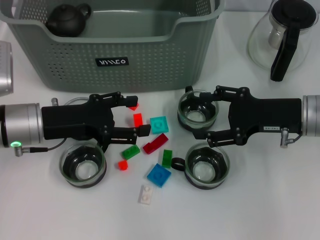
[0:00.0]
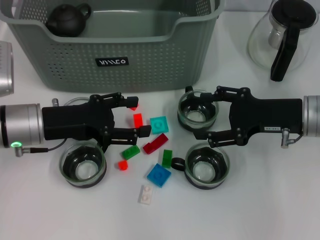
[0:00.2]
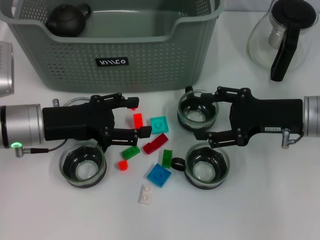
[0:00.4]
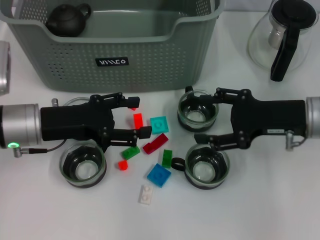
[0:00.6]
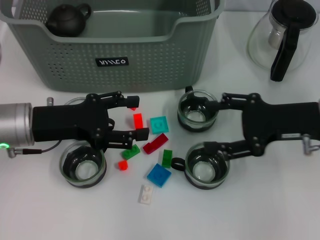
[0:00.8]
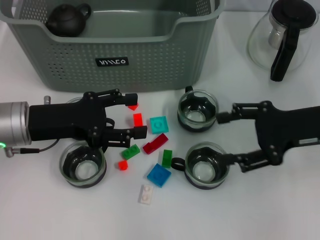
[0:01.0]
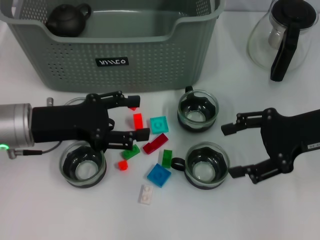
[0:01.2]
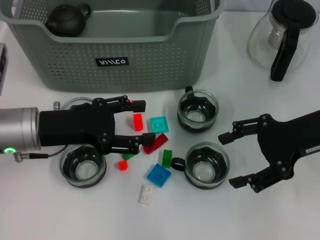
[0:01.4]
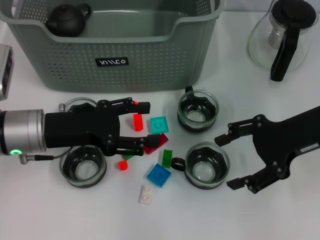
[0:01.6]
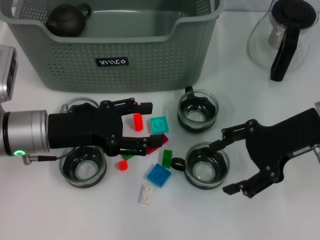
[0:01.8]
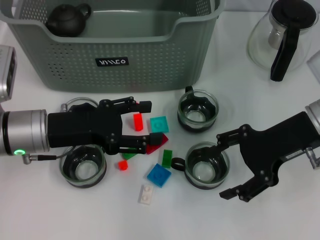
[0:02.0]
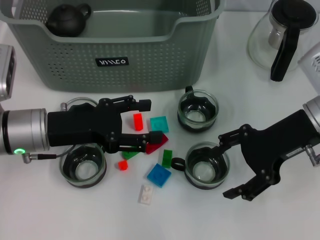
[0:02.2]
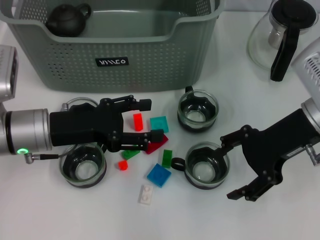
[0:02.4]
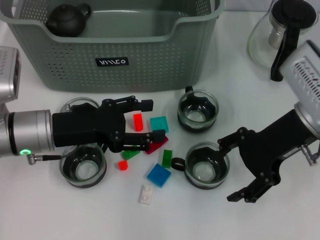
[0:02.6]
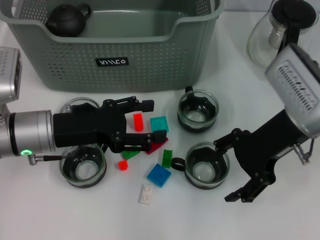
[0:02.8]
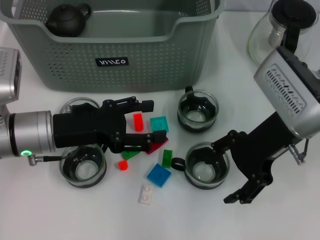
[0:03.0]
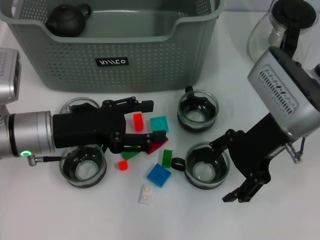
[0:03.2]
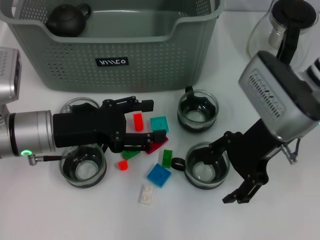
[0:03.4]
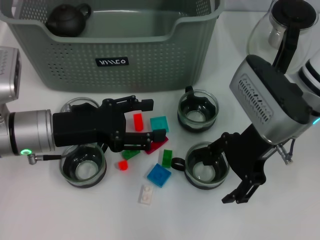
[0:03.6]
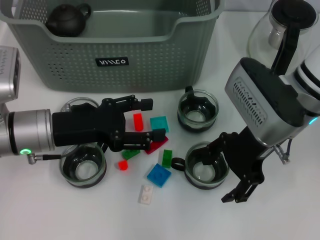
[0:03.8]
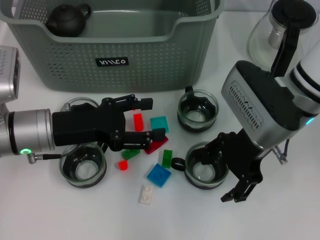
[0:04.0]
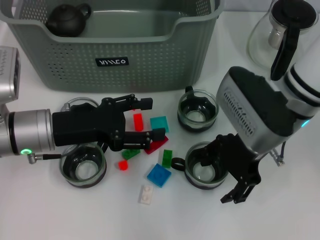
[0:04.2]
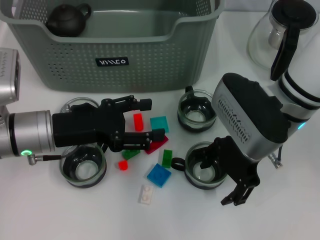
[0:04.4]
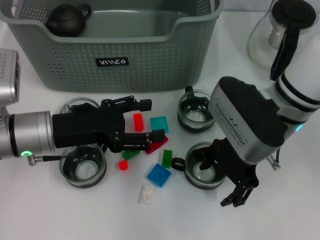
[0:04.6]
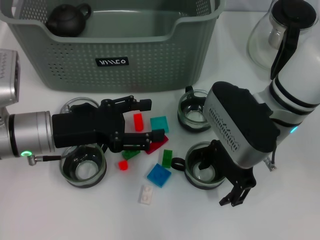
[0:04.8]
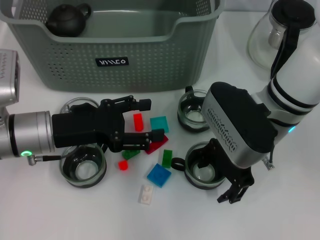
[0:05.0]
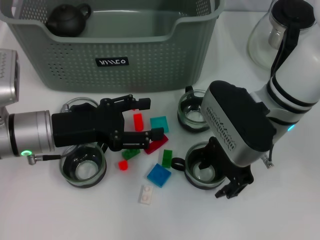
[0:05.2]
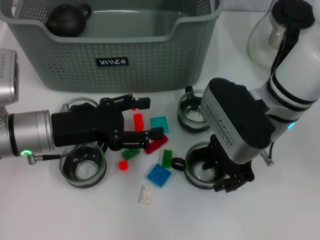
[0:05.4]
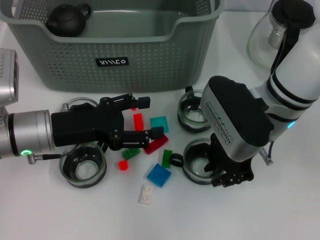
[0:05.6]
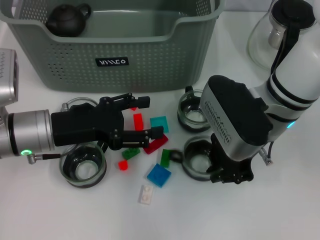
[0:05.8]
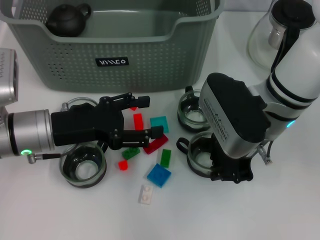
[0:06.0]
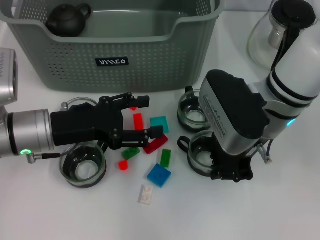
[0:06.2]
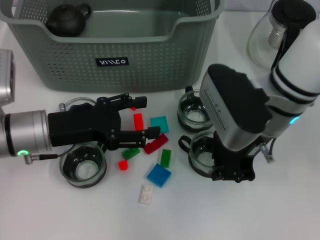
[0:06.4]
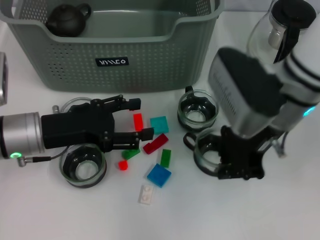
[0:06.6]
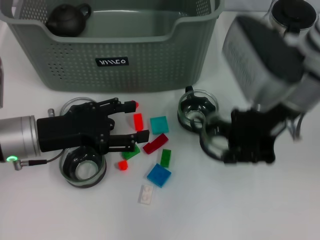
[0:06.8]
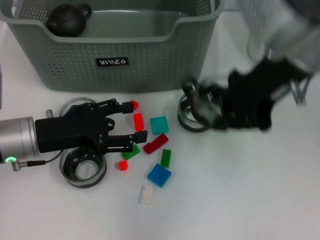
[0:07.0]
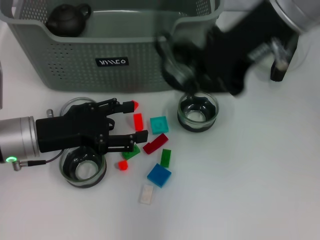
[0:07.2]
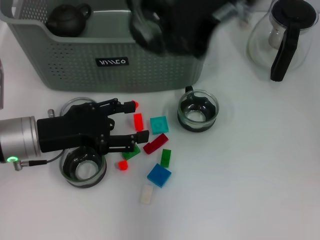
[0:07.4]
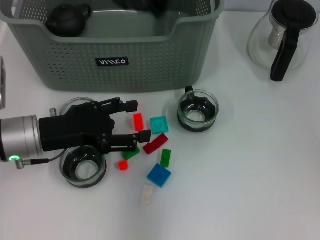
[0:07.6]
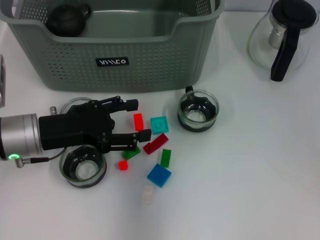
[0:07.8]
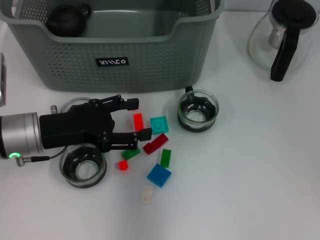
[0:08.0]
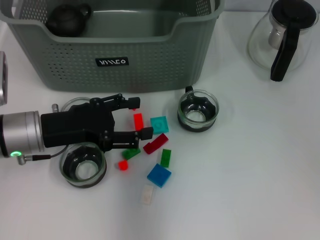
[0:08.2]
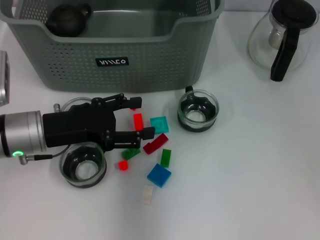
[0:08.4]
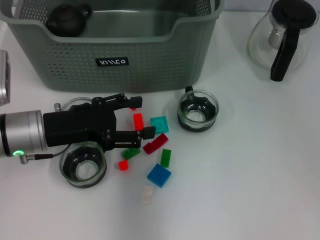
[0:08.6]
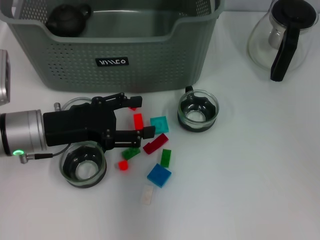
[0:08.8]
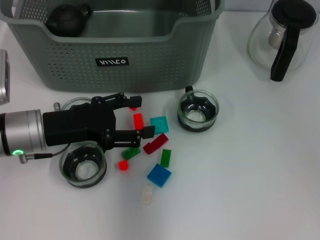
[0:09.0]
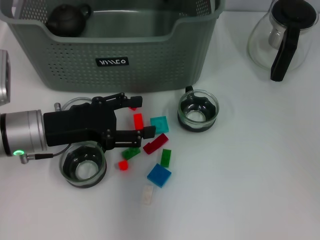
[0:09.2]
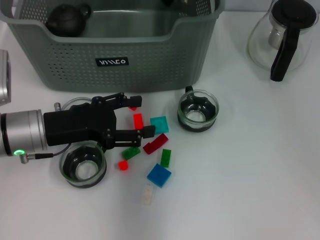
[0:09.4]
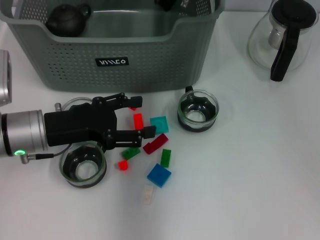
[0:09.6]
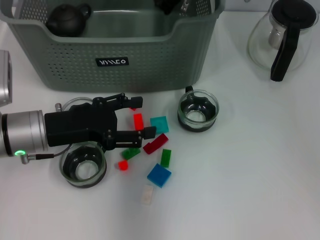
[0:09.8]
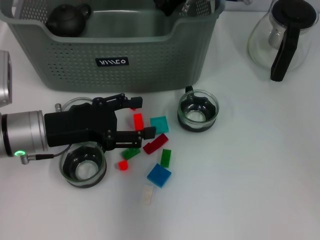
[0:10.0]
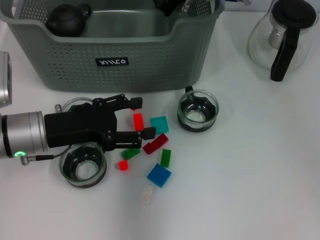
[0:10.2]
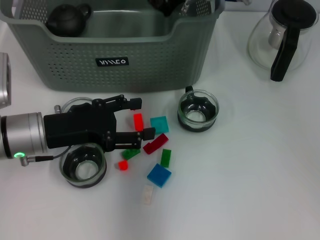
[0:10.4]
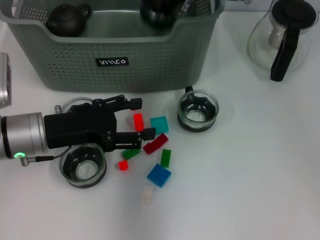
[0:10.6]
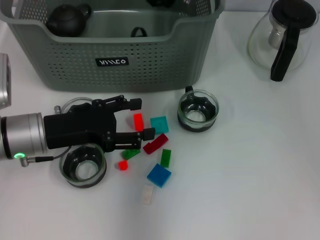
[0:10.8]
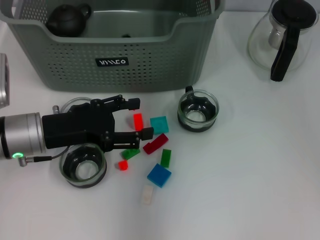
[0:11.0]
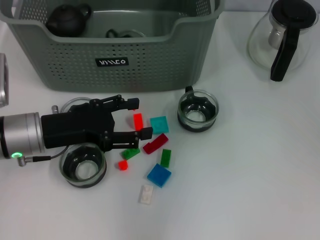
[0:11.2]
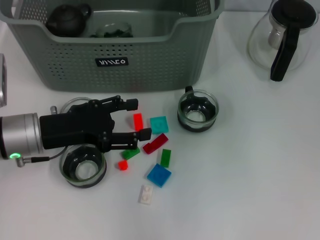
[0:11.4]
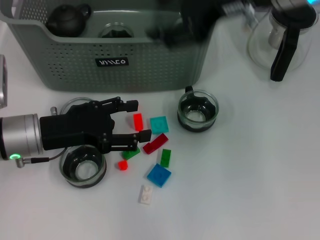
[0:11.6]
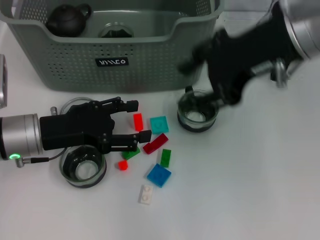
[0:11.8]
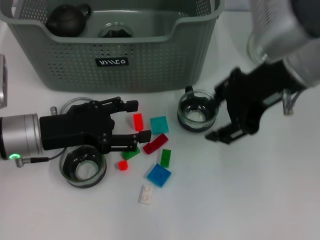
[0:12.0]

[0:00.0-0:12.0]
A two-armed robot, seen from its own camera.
Task of the whole recording: pick up the teacup on the table and place it into the storage bin, pick up the block on the table and place it into the storage bin.
Step, 0:00.0 to 0:05.8: Grasp the cup with right gripper.
Step, 0:06.0 to 0:11.0: Place the cup in the storage box with right gripper.
0:00.0 to 0:01.6: The right gripper goes roughly 5 cm upward.
0:01.6 to 0:03.0: The right gripper heads to the left, covering roughly 5 cm.
0:03.0 to 0:04.4: The grippers move only a little.
0:04.4 to 0:06.0: The right gripper closes.
0:06.0 to 0:07.6: The right gripper heads upward, covering approximately 20 cm.
0:07.6 to 0:09.0: The right gripper heads downward and forward, covering approximately 15 cm.
0:09.0 to 0:10.4: There are only small adjustments of the grippers.
0:10.4 to 0:12.0: The right gripper moves backward and to the right, about 15 cm, and opens up.

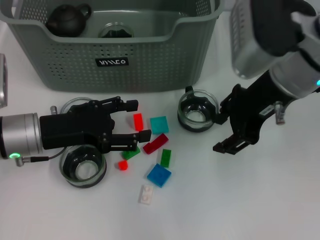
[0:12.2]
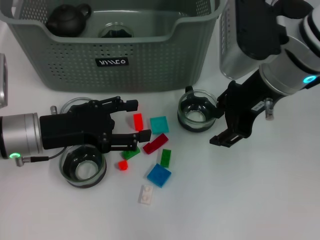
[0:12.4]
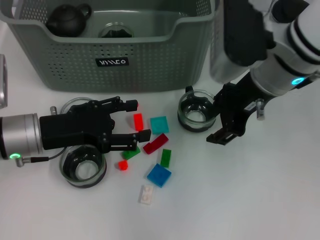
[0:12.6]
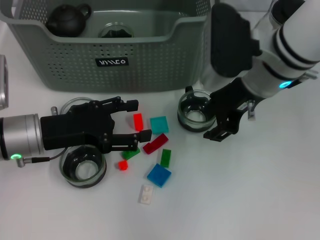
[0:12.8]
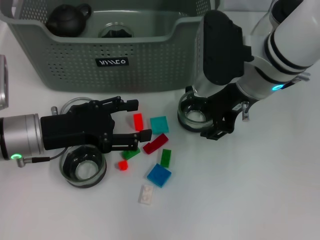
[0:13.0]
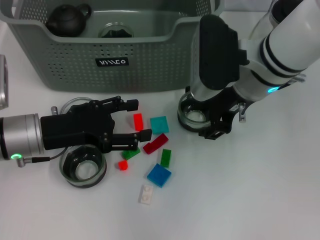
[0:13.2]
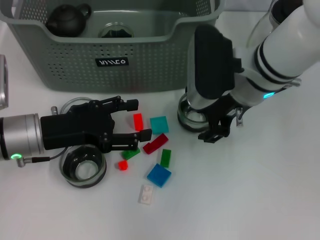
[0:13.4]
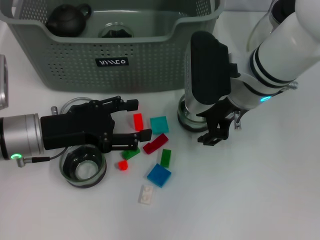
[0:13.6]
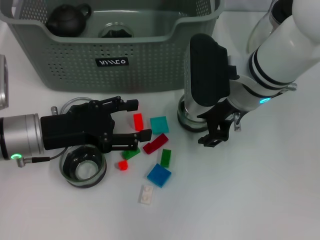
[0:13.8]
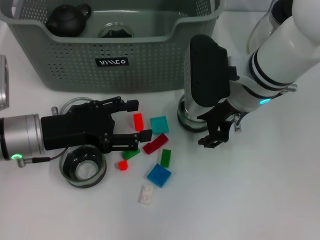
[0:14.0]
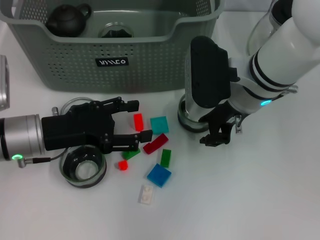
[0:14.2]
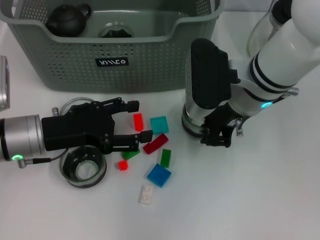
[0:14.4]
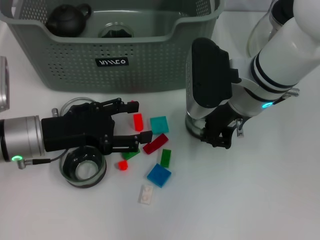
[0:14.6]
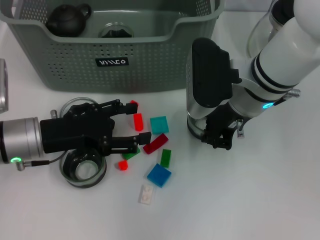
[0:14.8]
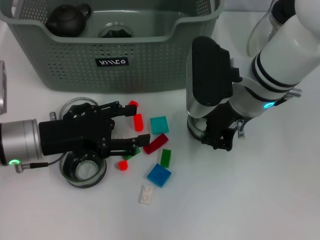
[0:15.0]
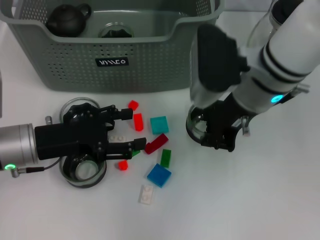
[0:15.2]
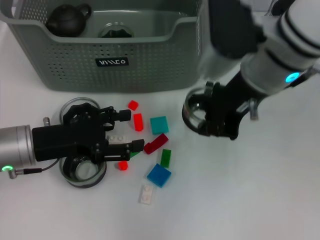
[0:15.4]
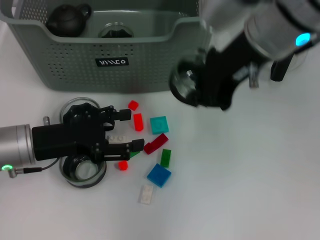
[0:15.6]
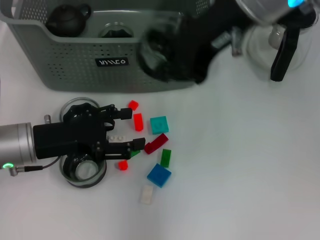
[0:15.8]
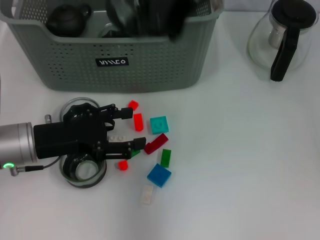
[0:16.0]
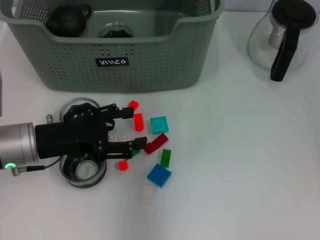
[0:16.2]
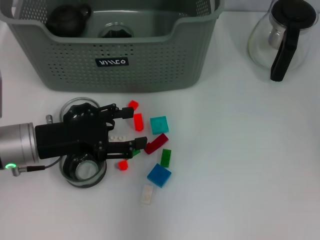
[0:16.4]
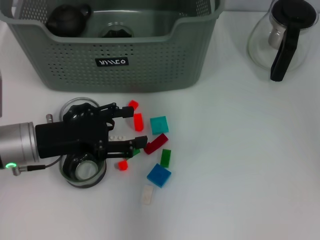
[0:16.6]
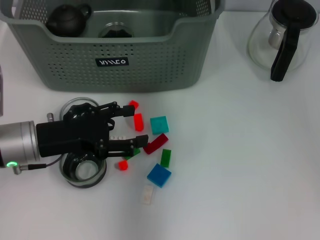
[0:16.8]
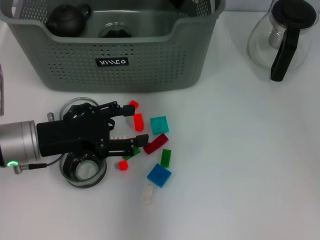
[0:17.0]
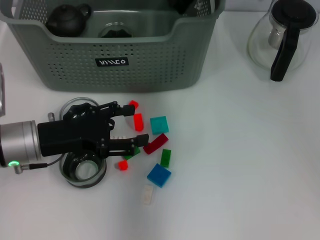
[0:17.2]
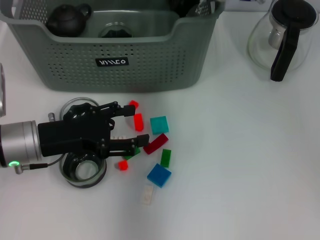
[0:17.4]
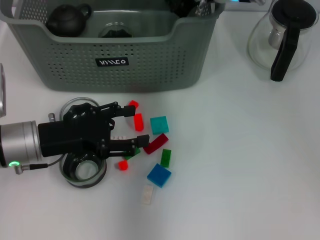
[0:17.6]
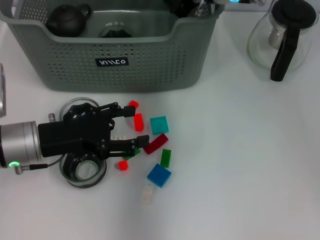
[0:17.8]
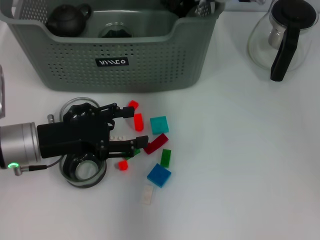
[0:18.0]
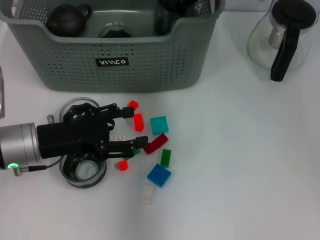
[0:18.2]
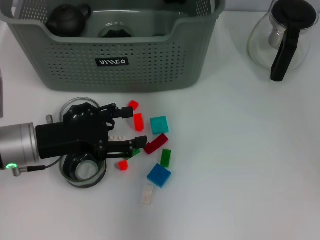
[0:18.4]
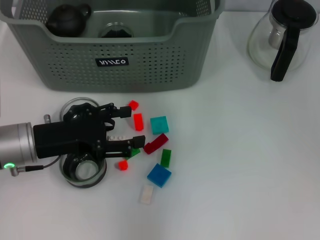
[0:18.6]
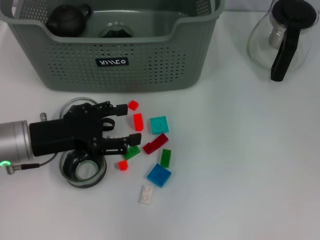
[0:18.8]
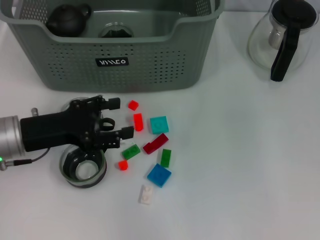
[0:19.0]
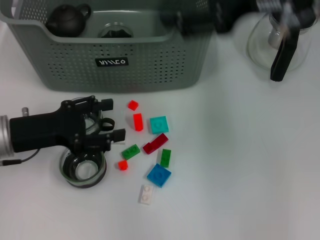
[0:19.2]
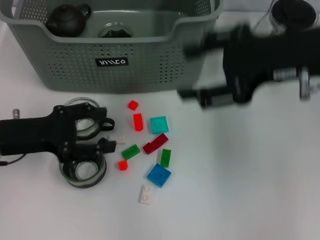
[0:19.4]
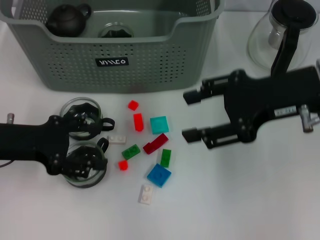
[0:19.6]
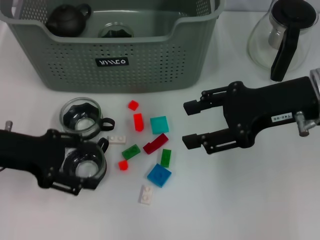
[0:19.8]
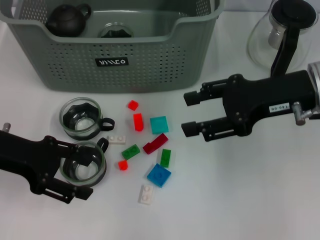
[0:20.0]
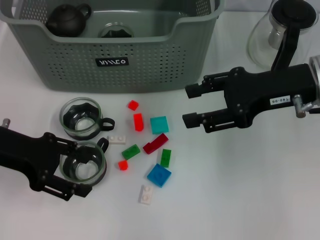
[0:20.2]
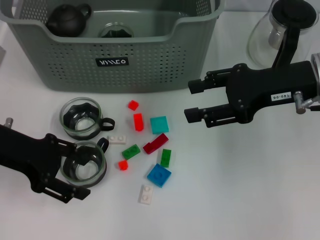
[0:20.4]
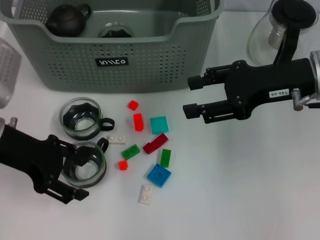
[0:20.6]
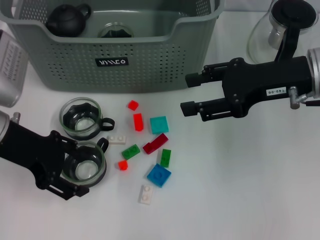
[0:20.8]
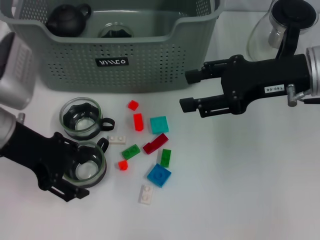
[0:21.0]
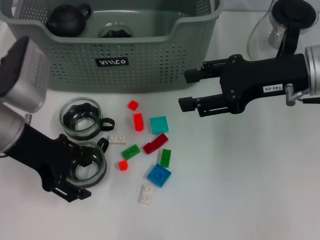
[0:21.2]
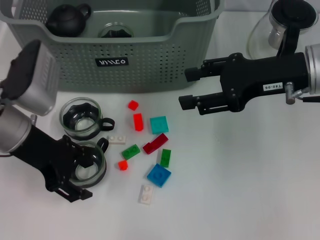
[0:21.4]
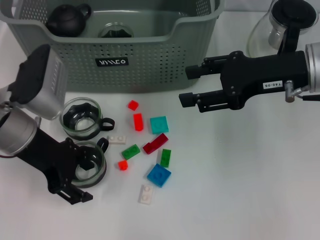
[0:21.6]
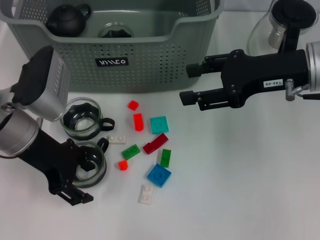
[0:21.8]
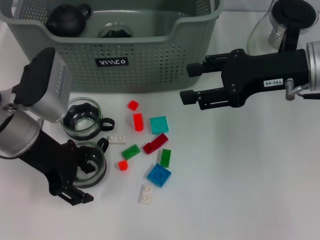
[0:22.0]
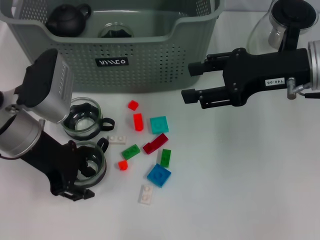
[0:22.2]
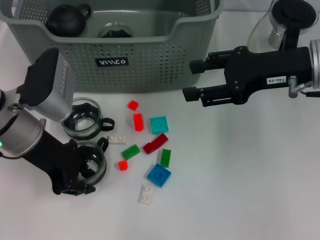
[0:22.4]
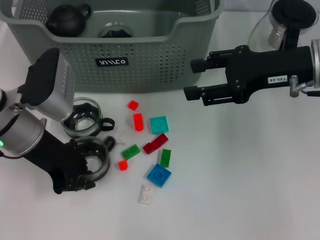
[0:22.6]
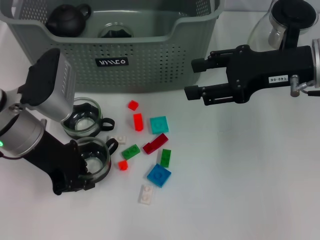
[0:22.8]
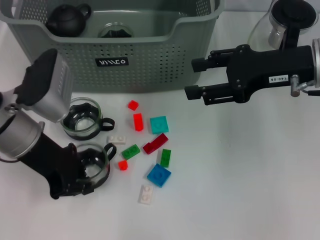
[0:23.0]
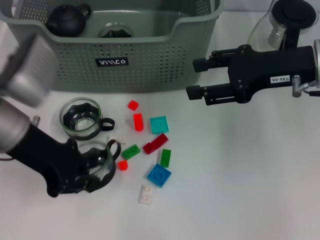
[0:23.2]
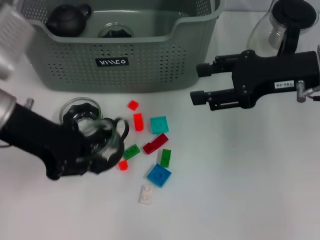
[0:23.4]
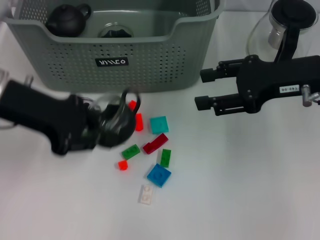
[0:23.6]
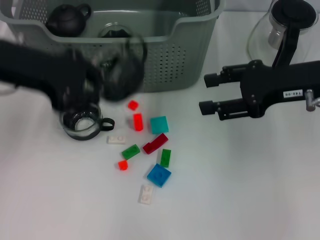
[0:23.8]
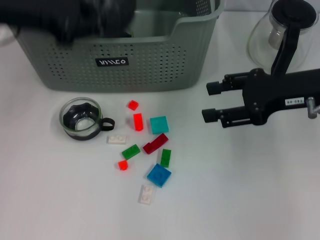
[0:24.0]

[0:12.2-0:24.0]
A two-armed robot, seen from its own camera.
Task of the whole recording: pick up the teacup on the table and place it into the storage bin, pick up the block on the table and place it into the storage bin.
Step, 0:12.2 to 0:14.8: Grasp the cup with right gripper.
Step, 0:15.0 to 0:18.8: Place the cup in the storage box with right gripper.
Step, 0:19.0 to 0:22.6: Grasp the cup with left gripper.
0:12.2 to 0:13.6: The right gripper is displaced downward by approximately 5 cm.
0:13.6 to 0:15.2: The right gripper closes up.
0:15.2 to 0:16.6: The right gripper moves forward and upward, some 15 cm.
0:16.6 to 0:18.2: The right gripper heads downward, covering roughly 5 cm.
0:18.2 to 0:19.6: The right gripper heads backward and to the right, covering approximately 20 cm, and opens its fingers. The left gripper travels to the left by approximately 5 cm.
0:19.6 to 0:21.0: The left gripper changes place by approximately 5 cm.
0:21.0 to 0:22.6: The left gripper closes up.
0:22.6 to 0:24.0: The left gripper goes roughly 10 cm upward, and closes its fingers.
